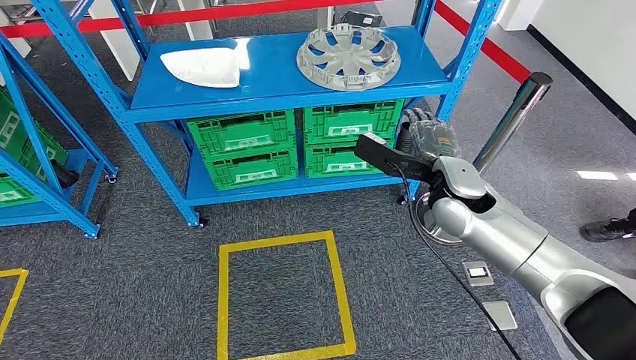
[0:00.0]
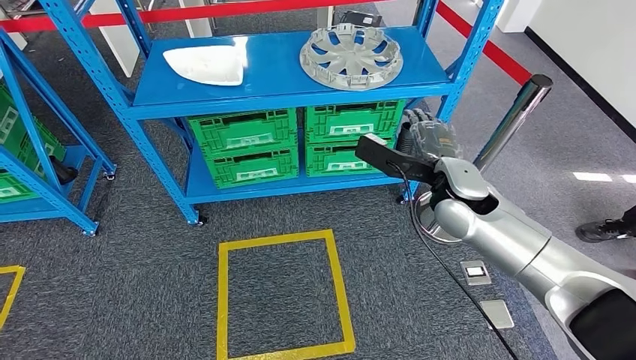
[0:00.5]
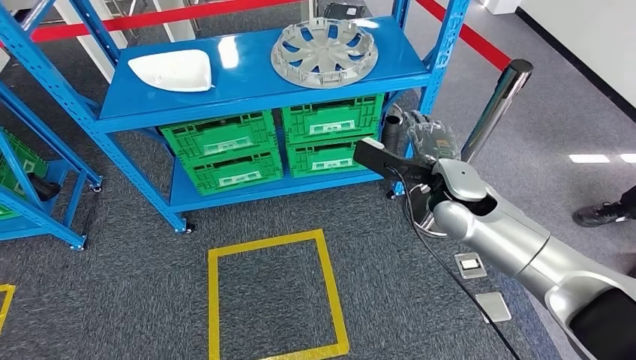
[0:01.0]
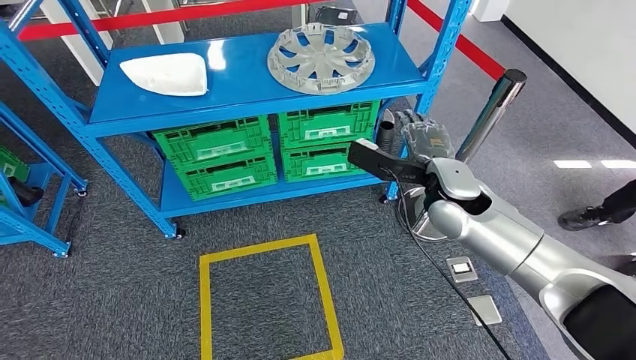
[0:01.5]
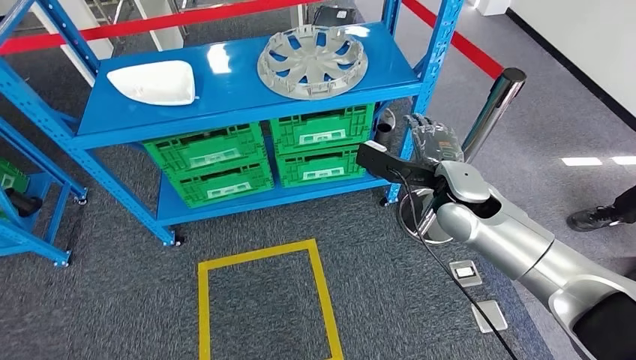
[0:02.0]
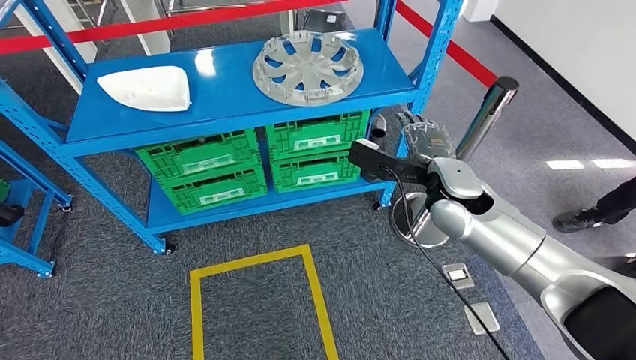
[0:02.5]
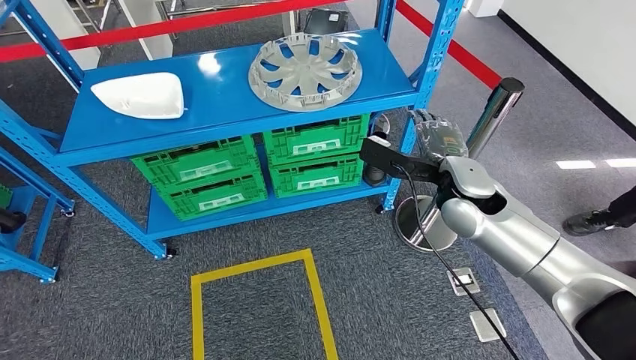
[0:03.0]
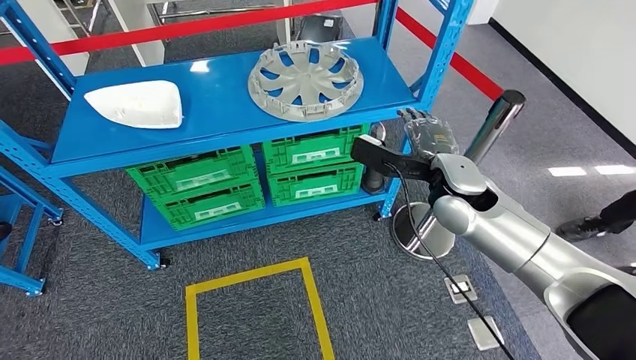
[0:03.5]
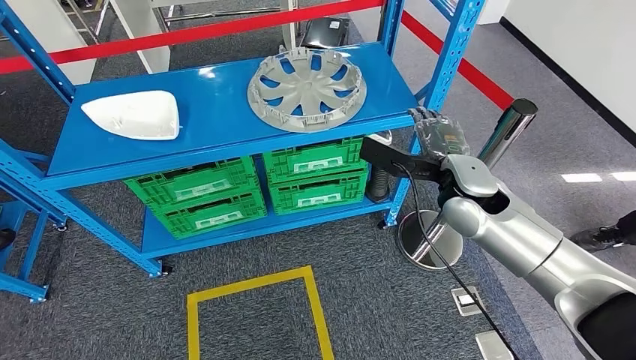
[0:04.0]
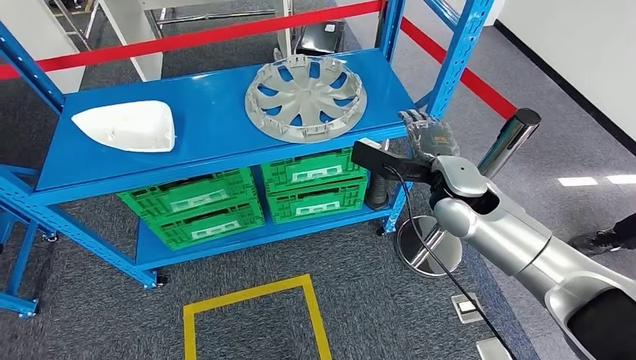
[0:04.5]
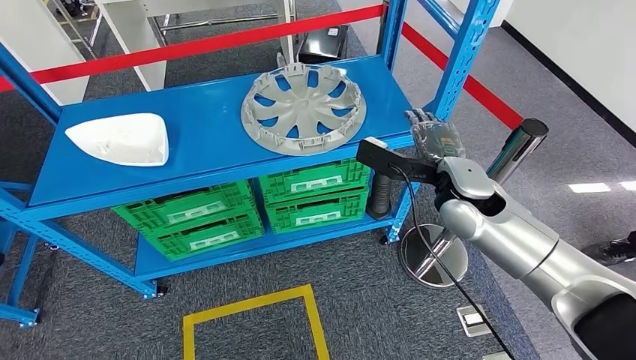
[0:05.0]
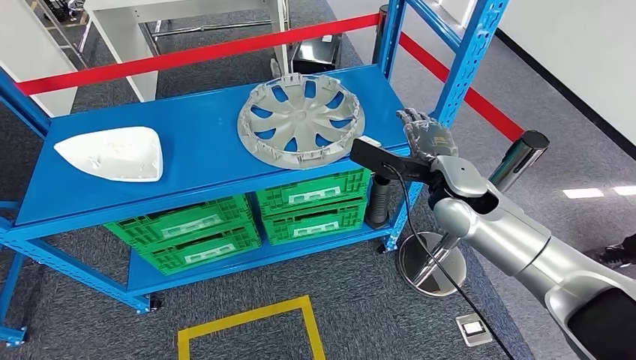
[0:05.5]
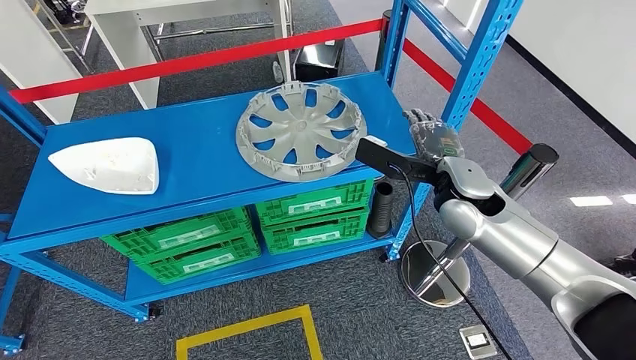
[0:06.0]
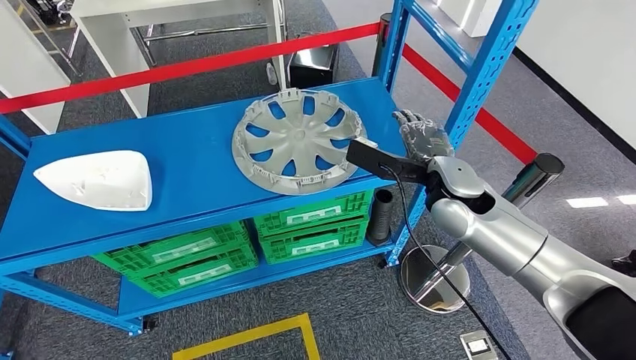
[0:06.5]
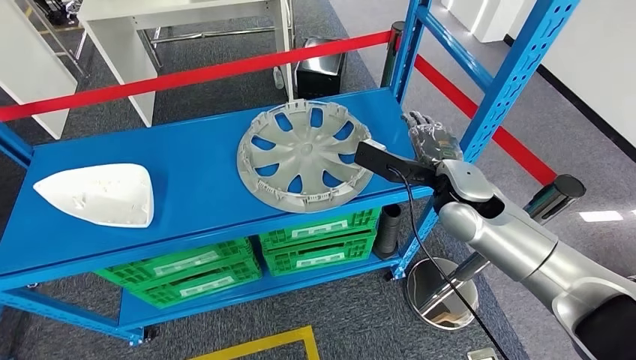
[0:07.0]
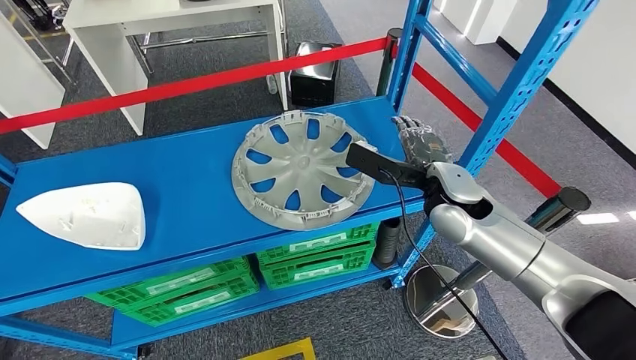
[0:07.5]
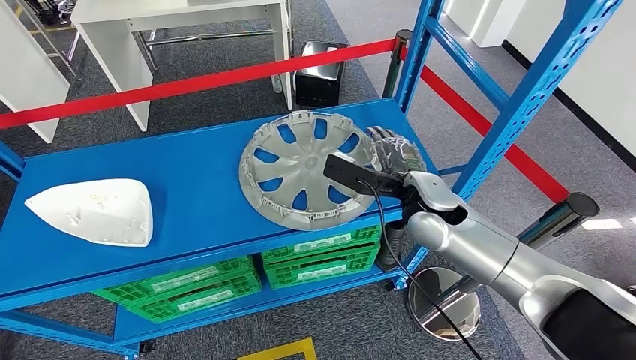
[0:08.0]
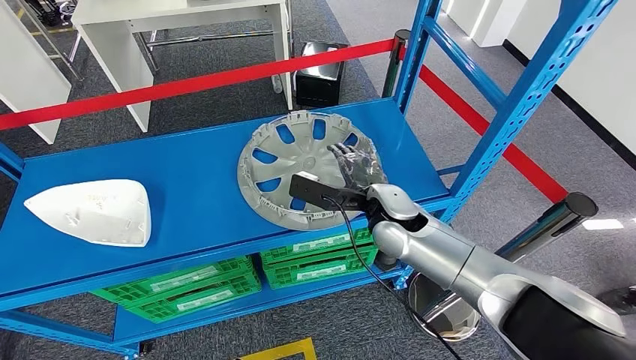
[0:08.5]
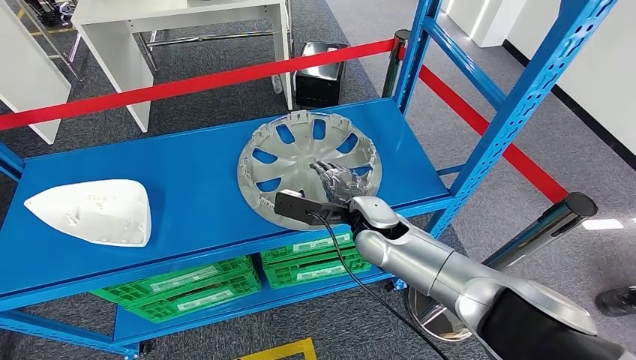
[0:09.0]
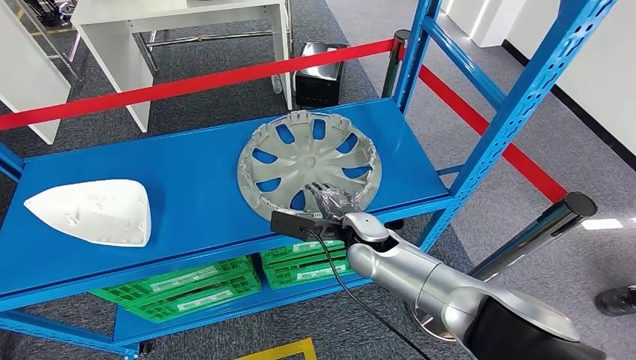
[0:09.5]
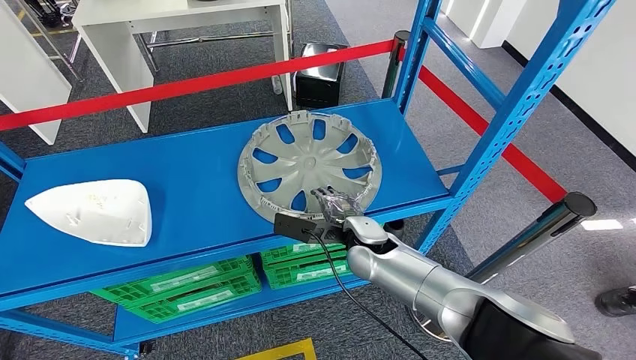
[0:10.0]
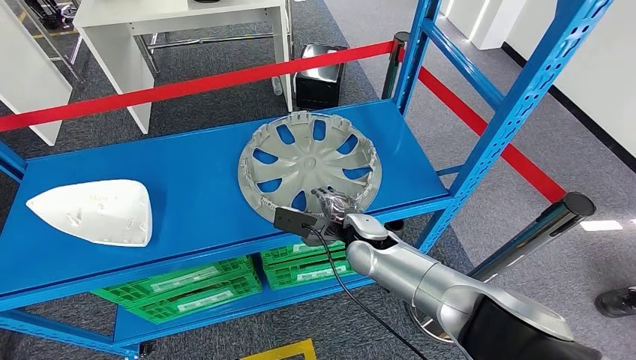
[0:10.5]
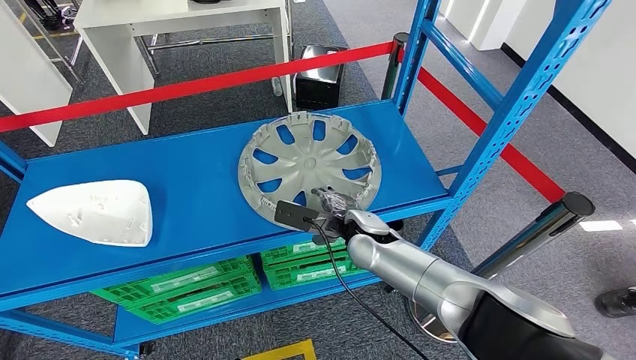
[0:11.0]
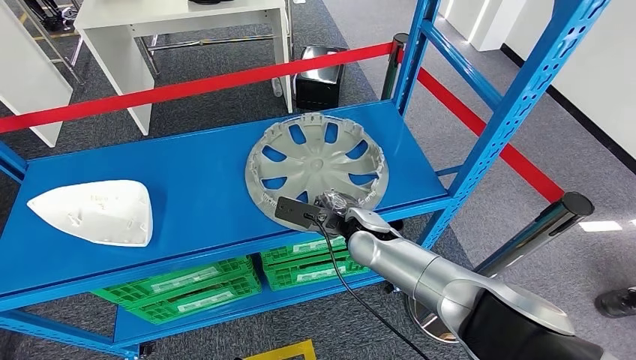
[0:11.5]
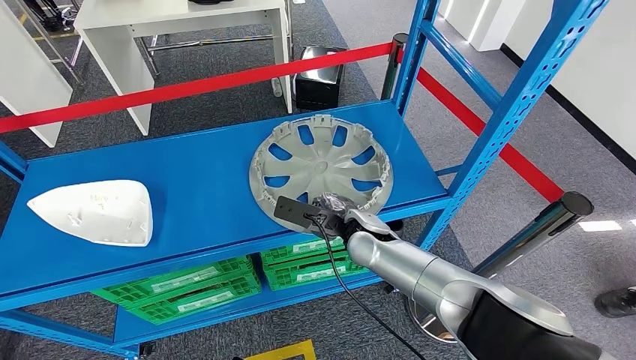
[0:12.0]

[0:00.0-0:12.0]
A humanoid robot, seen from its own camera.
0:10.0 to 0:12.0: The hands move only a little.

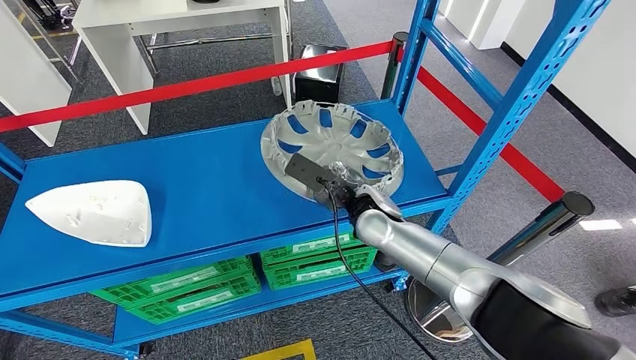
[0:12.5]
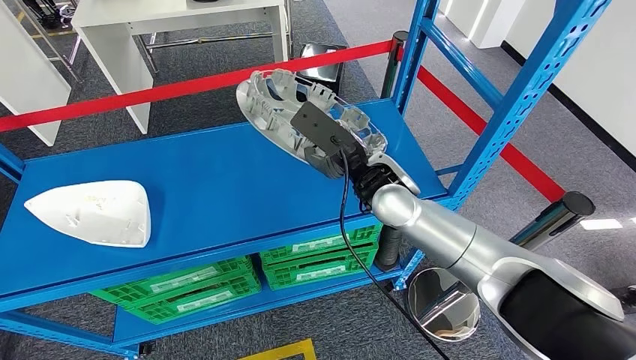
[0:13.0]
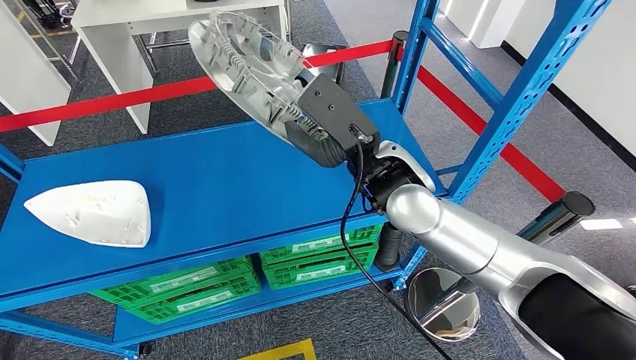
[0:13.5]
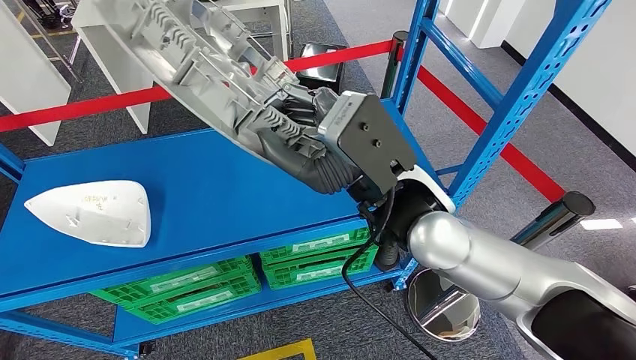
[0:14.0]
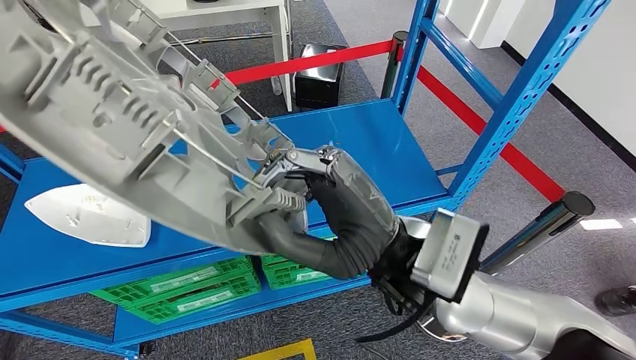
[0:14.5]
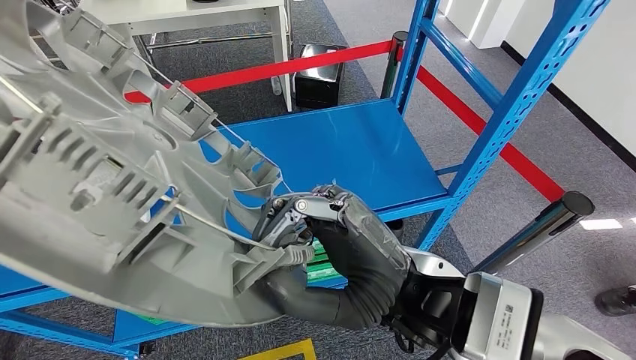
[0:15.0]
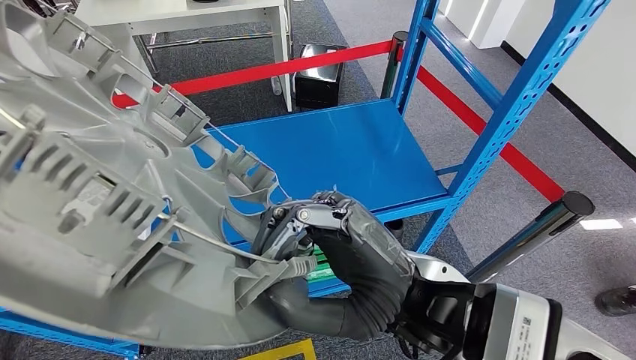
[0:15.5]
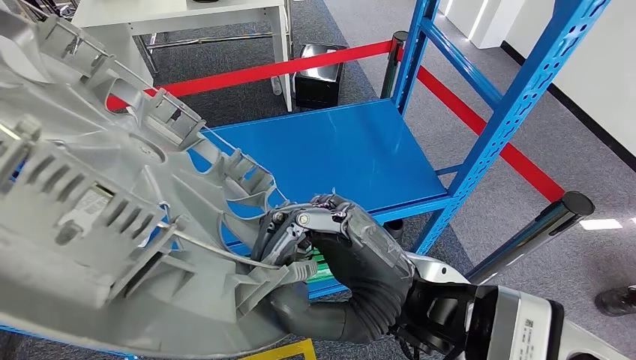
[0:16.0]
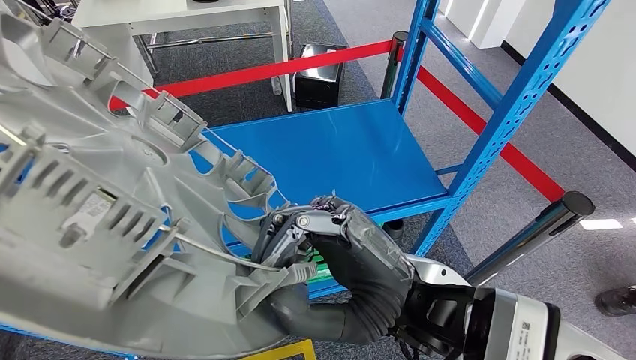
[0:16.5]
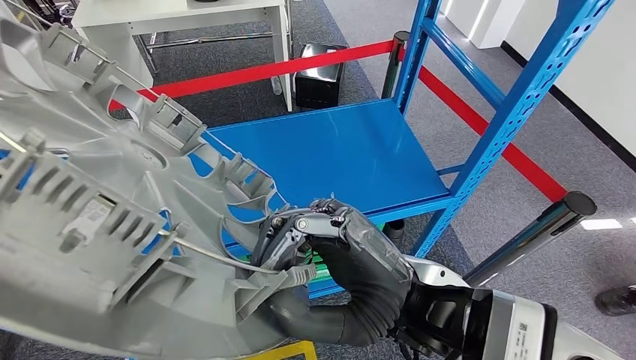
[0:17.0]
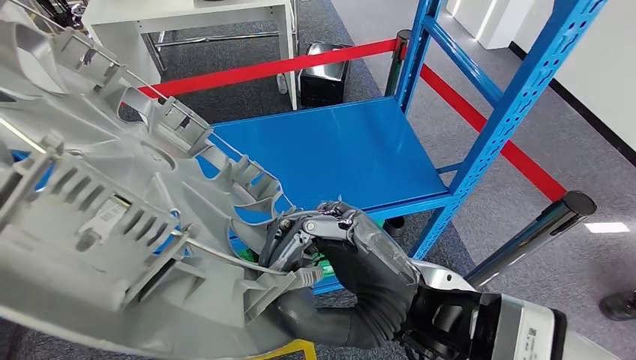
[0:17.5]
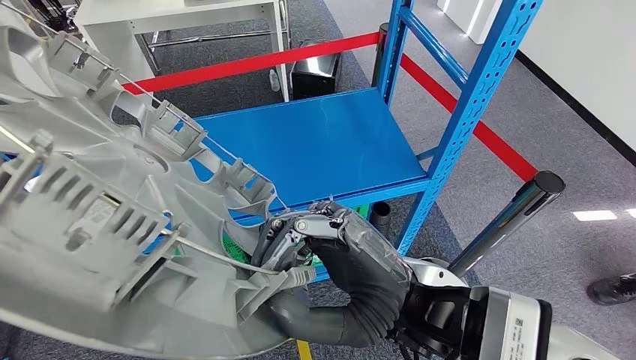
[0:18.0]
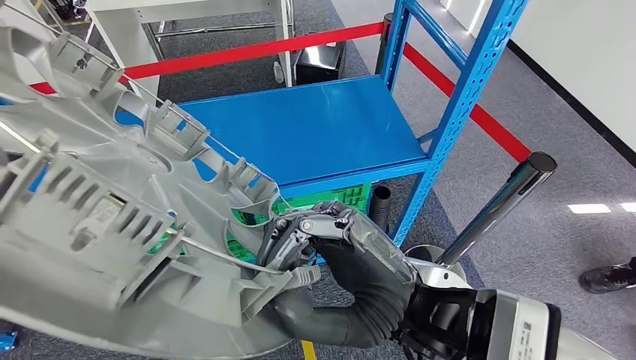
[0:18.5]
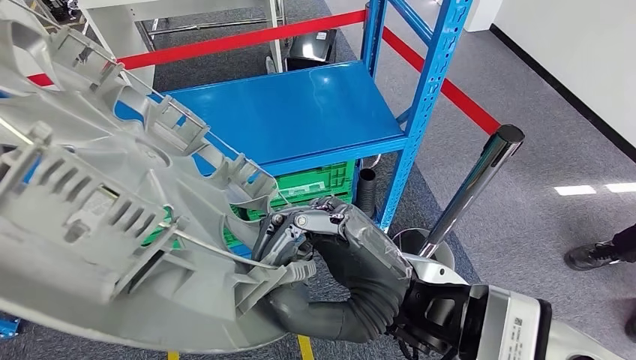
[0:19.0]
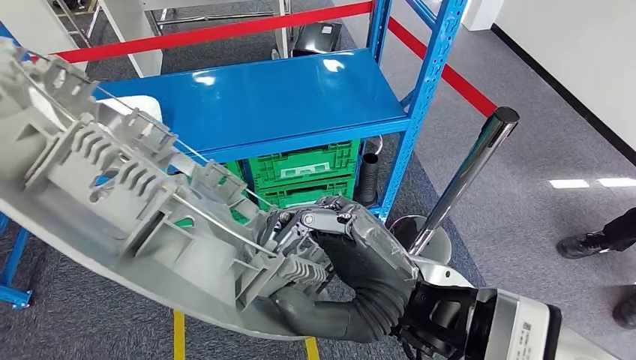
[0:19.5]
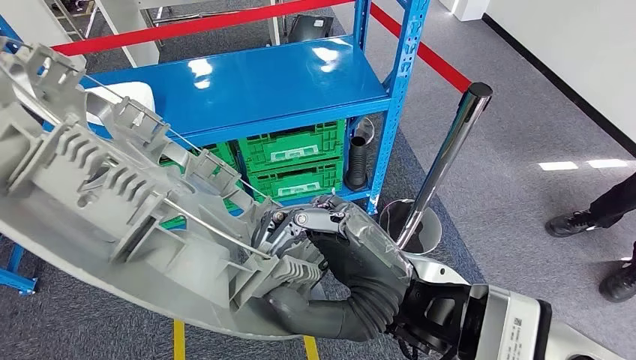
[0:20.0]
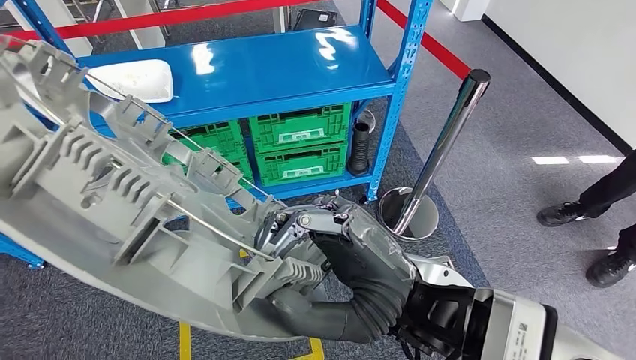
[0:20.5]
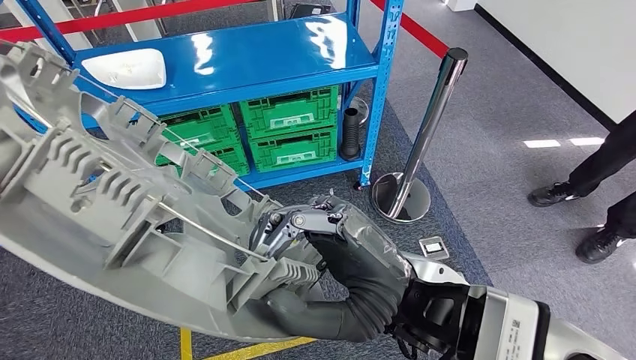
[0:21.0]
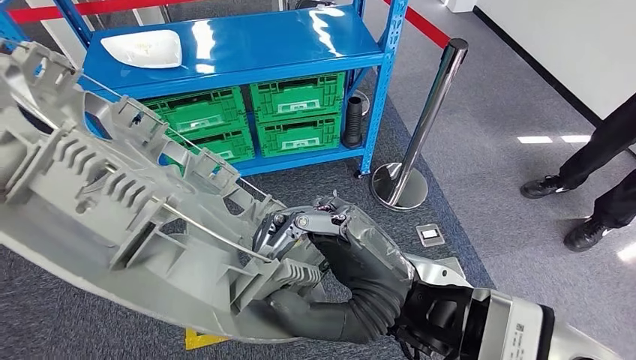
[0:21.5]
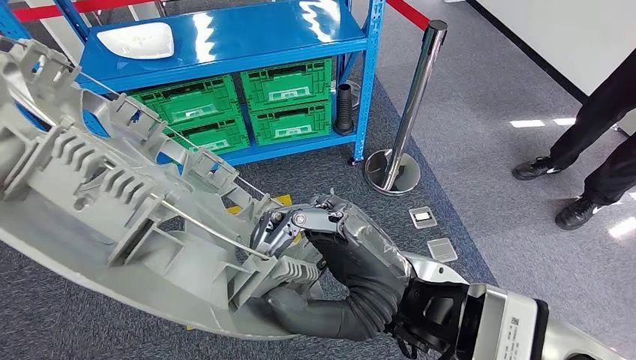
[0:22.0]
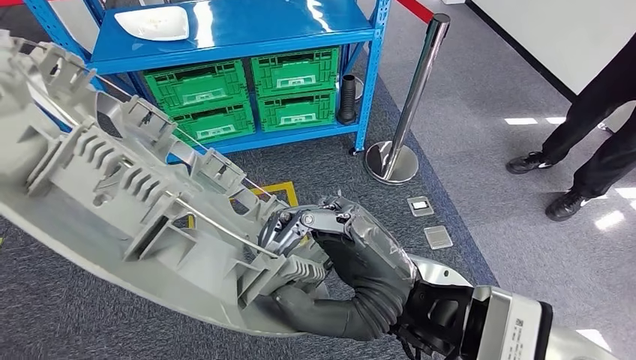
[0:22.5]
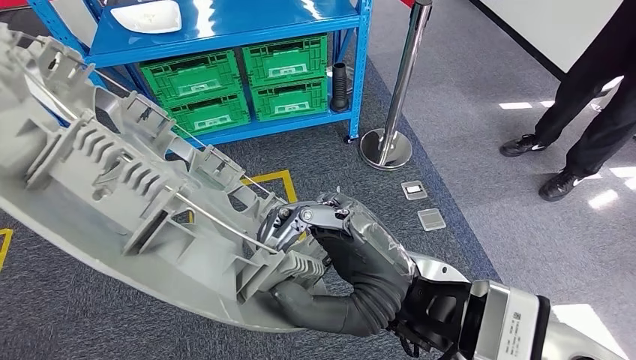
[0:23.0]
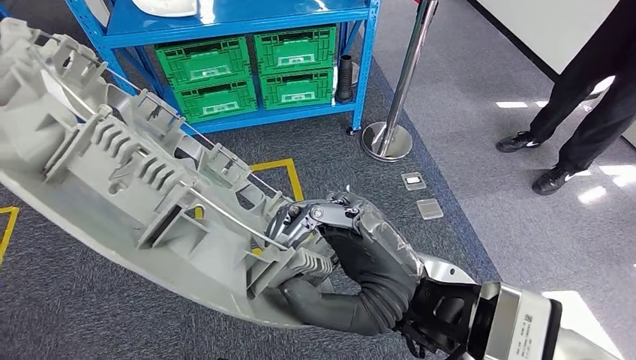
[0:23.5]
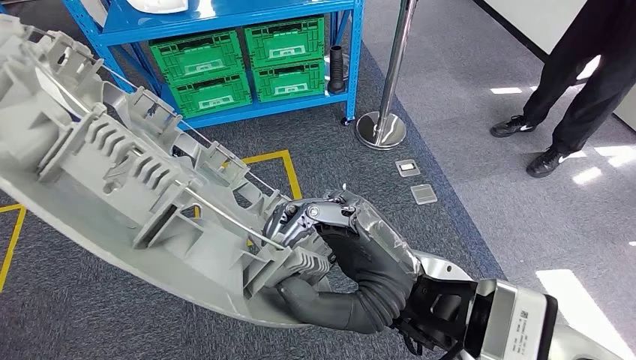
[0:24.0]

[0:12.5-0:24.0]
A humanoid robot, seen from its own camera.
Step, 0:12.5 to 0:15.0: Pick up the large material from the shelf.
